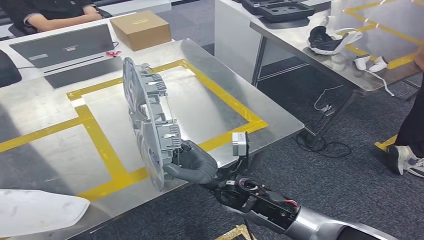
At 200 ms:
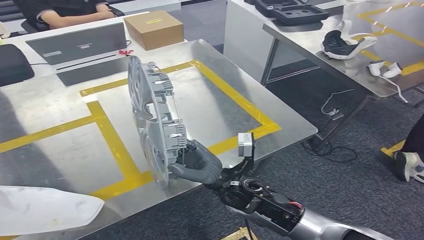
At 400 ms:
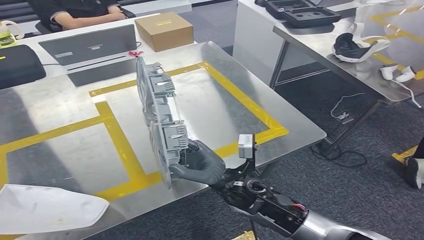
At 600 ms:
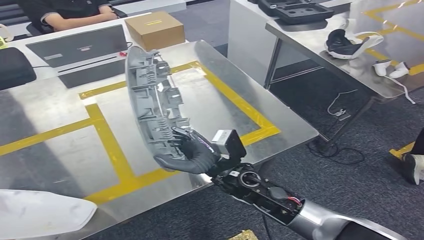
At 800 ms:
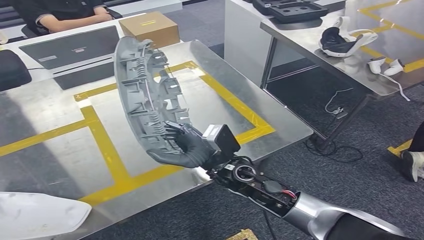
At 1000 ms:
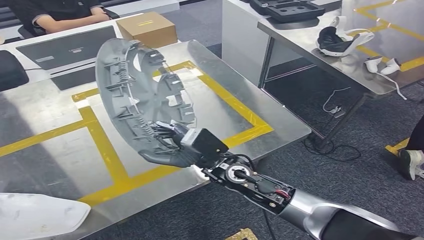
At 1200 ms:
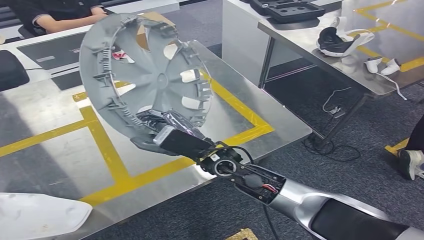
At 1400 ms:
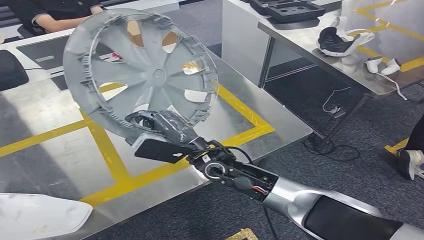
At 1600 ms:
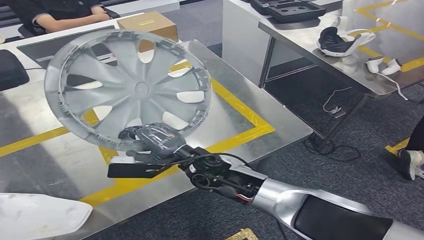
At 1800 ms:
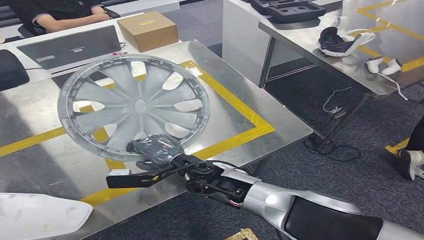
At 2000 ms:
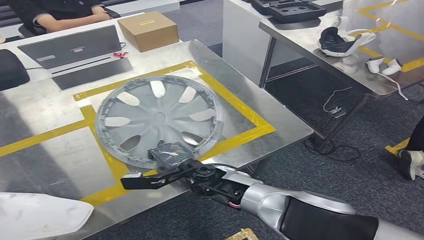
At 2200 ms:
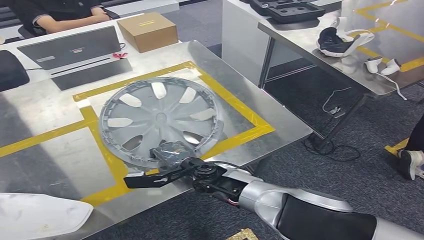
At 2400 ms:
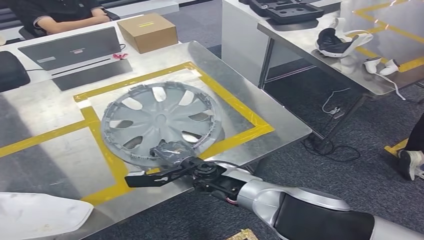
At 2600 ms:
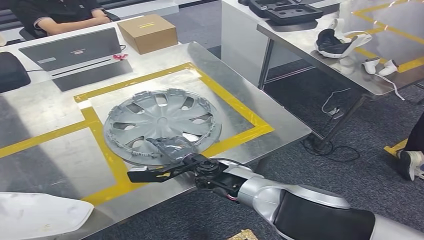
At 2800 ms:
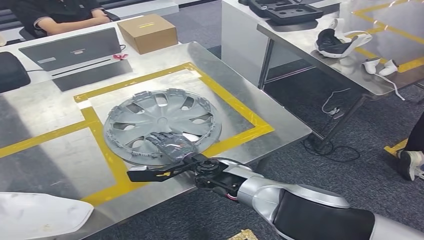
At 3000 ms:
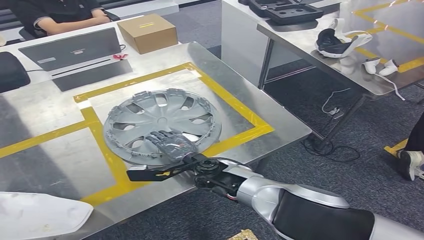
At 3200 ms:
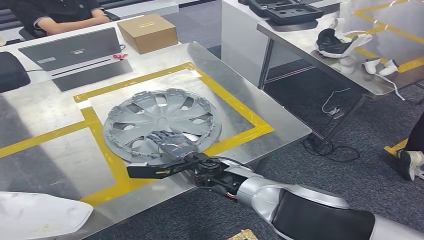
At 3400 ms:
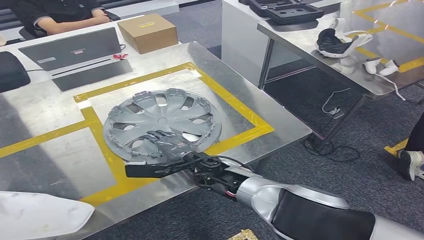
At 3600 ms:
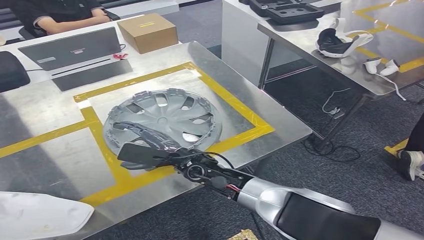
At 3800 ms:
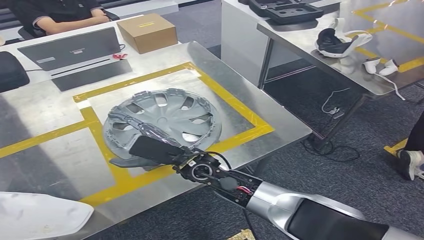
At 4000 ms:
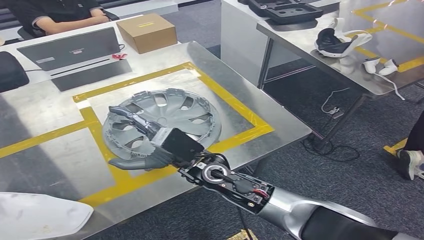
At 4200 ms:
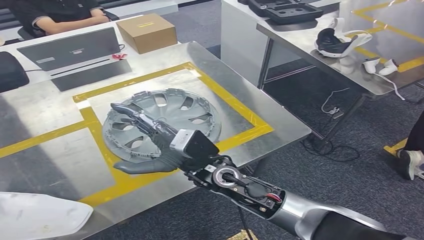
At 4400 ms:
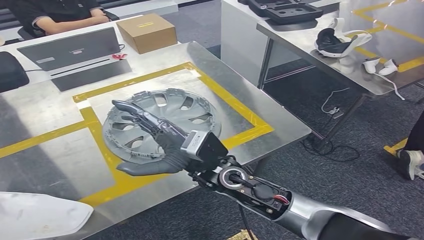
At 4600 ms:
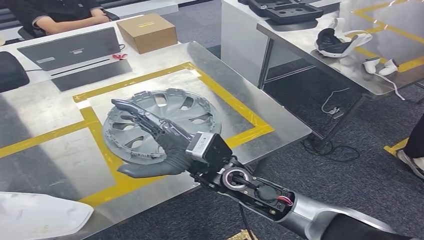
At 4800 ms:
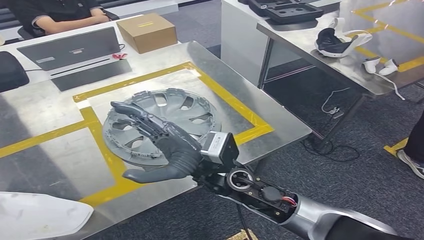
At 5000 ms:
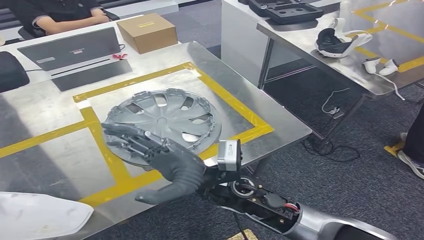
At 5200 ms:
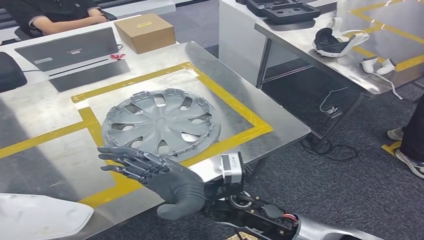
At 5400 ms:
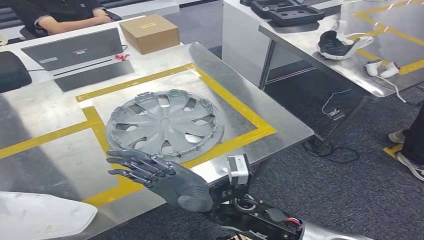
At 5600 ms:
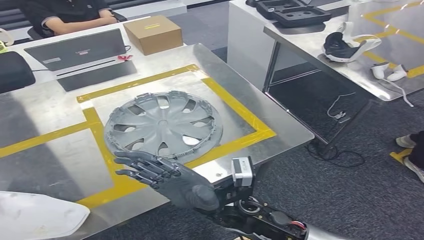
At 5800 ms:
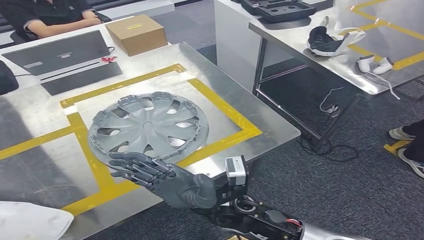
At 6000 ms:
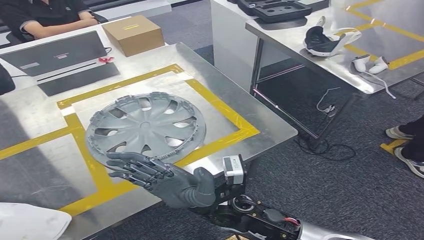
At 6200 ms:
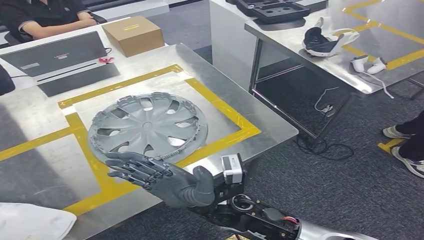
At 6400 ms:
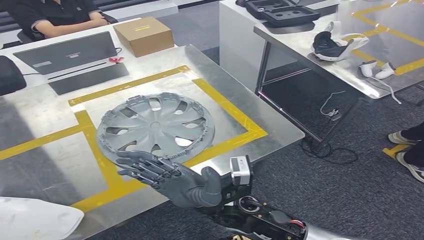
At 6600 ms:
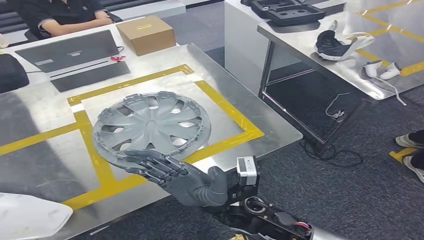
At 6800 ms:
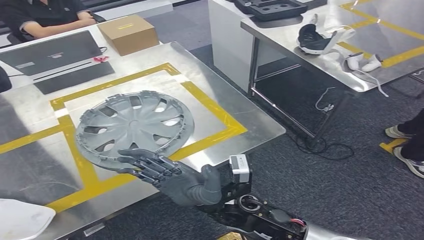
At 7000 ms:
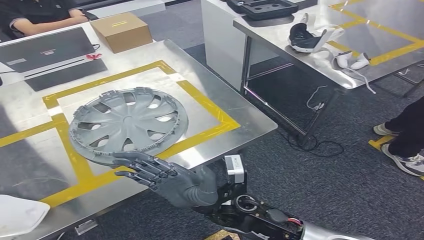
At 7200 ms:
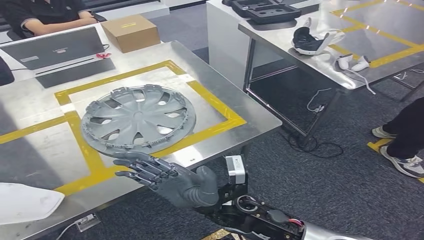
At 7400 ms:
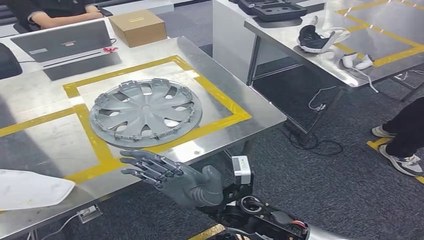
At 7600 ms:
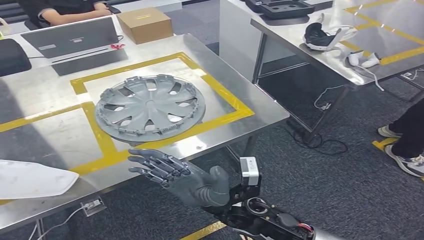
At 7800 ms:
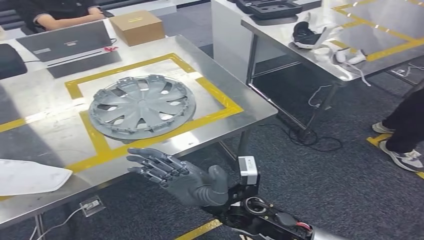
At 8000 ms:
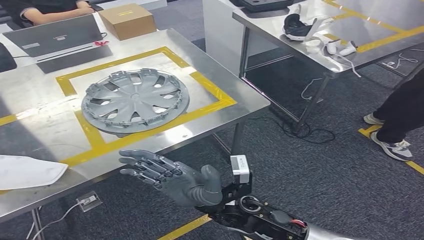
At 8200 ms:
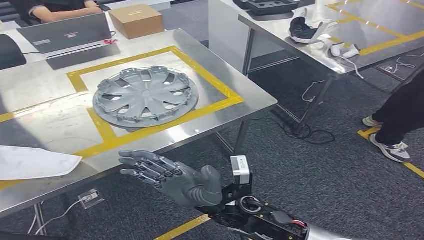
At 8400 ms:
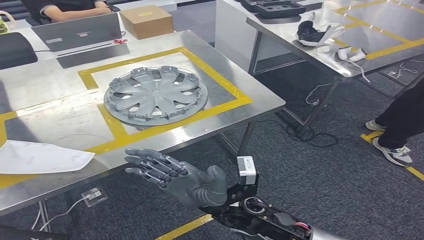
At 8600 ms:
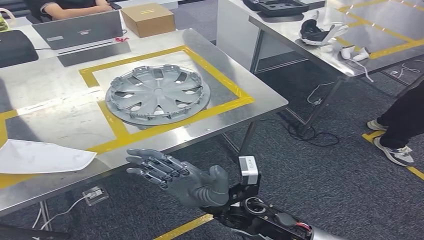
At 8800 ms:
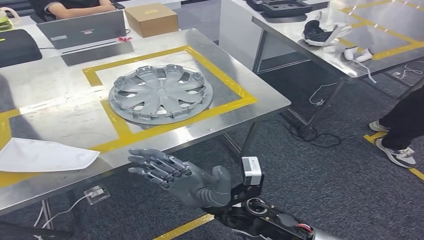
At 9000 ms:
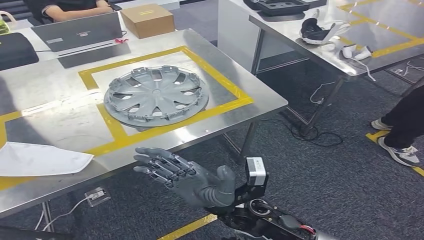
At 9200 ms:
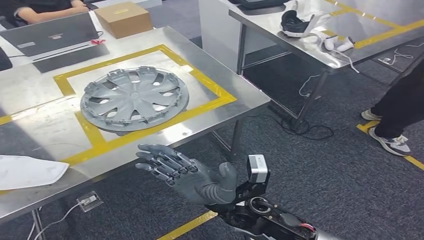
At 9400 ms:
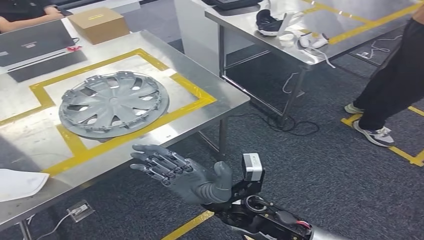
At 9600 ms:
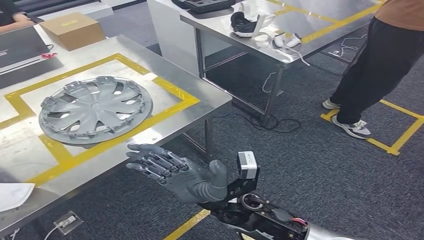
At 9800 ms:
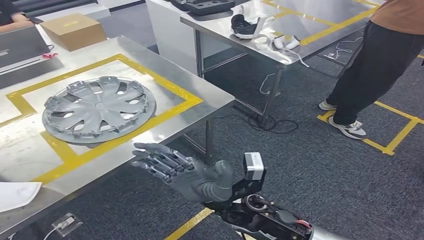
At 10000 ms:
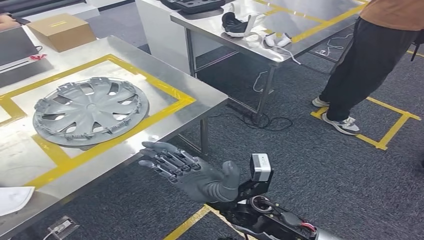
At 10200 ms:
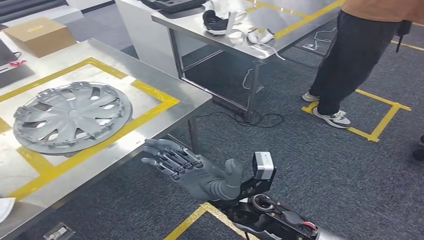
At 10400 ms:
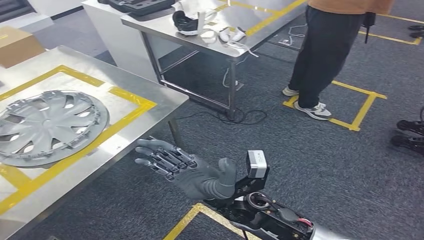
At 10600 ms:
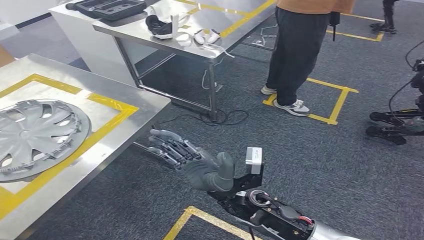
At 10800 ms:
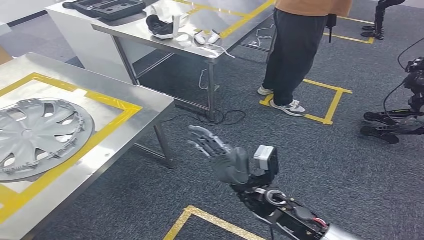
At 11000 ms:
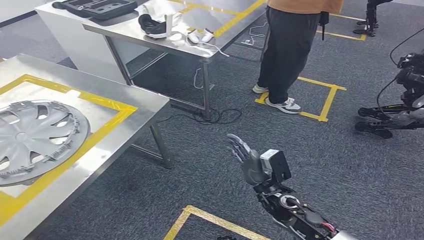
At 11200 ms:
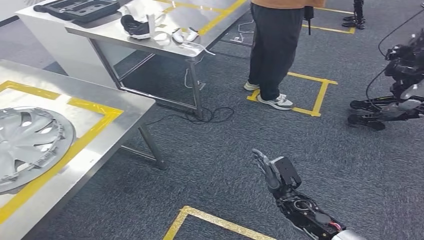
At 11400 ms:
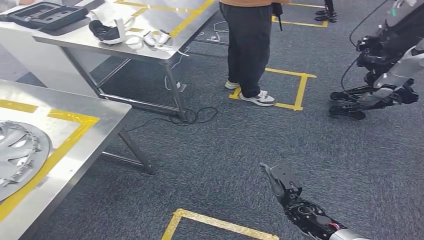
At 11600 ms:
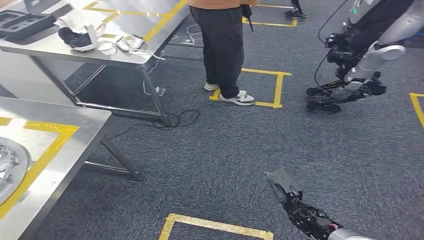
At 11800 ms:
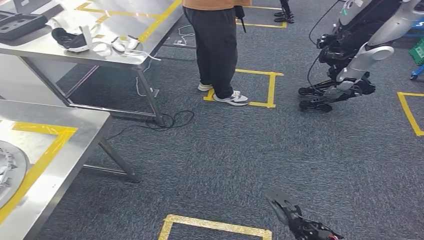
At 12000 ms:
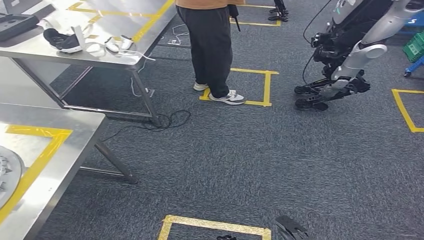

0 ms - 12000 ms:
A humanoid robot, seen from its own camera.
Step, 0 ms - 5400 ms: Insert the small component into the corresponding slot on the workbench.
3000 ms - 4400 ms: The right hand is displaced upward by approximately 10 cm.

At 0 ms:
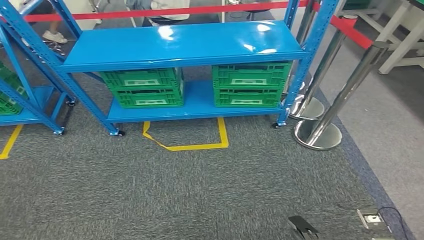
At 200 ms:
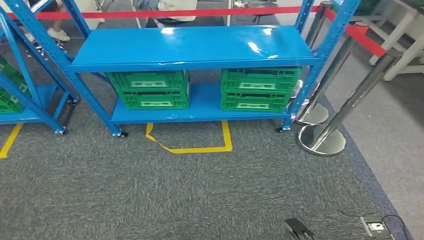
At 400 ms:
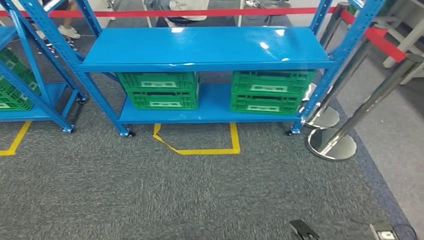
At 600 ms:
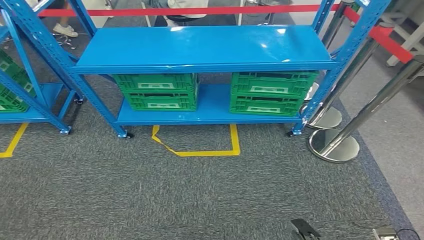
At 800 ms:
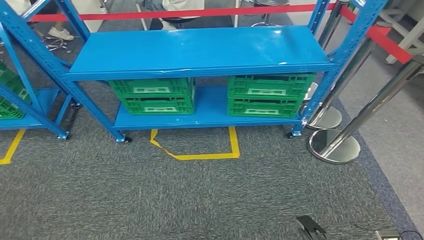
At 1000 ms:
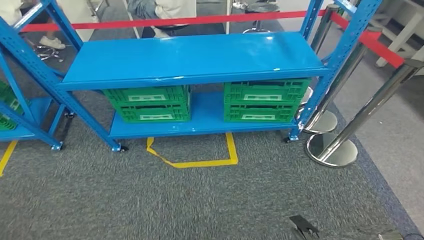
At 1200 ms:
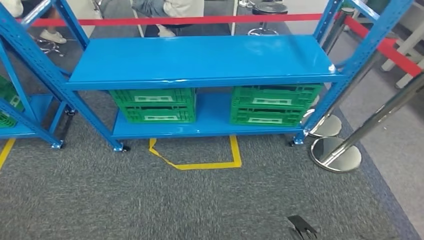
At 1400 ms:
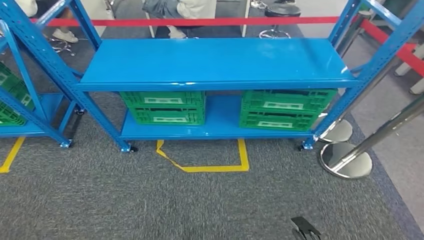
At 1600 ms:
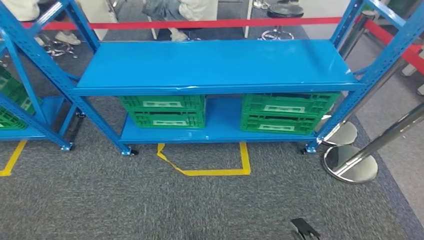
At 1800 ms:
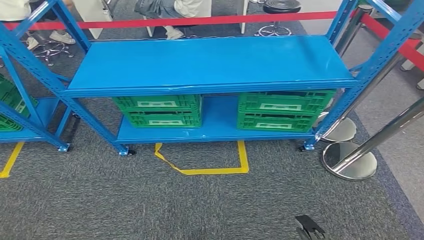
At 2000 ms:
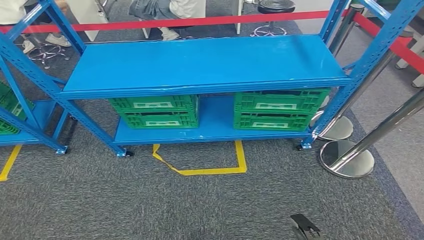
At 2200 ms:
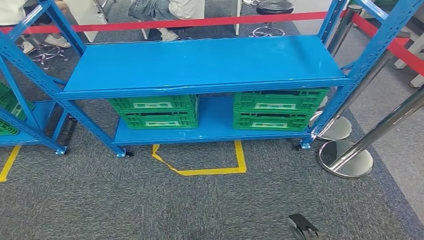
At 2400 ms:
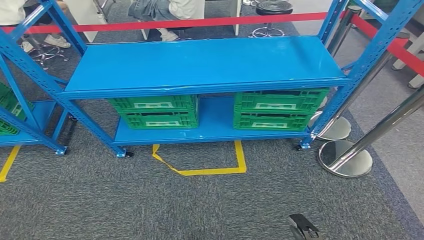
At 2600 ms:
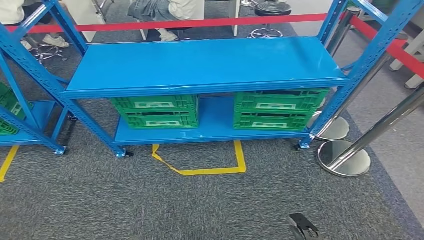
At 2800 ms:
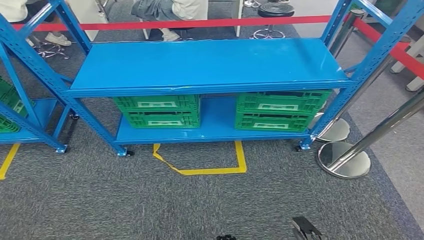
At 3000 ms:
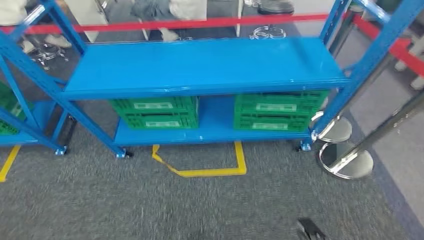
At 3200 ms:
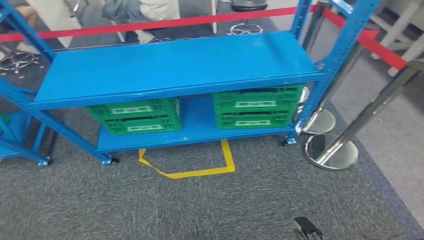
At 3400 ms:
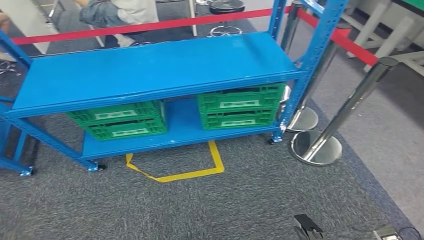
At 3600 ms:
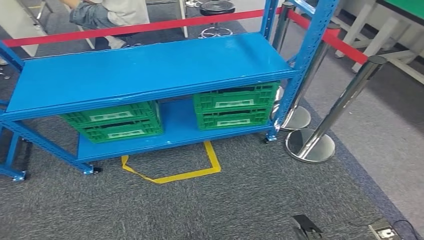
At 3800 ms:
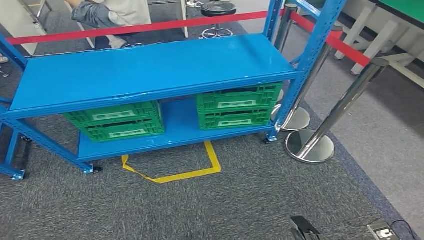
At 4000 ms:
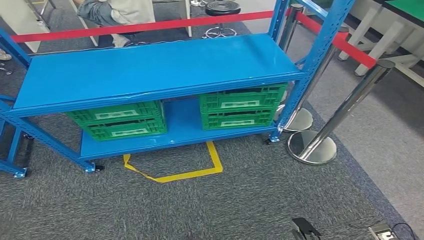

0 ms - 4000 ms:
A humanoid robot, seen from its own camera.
Step, 0 ms - 4000 ms: Return to the initial position at the workbench.
1400 ms - 2600 ms: The two hands keep their place.

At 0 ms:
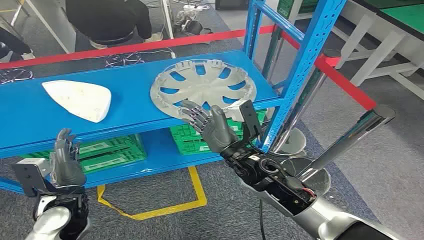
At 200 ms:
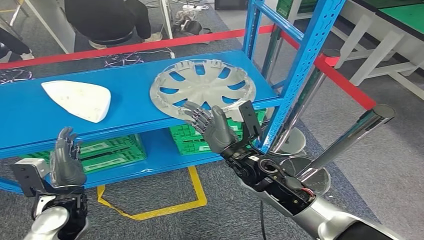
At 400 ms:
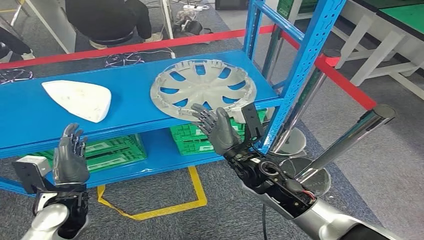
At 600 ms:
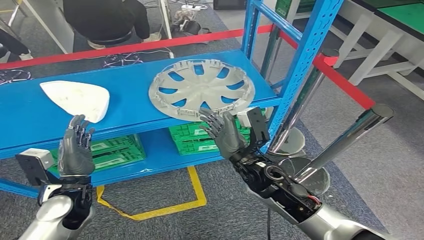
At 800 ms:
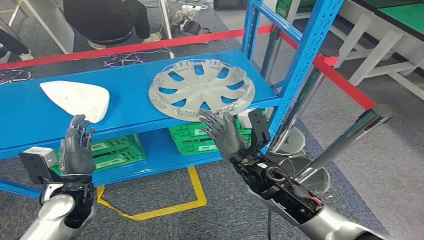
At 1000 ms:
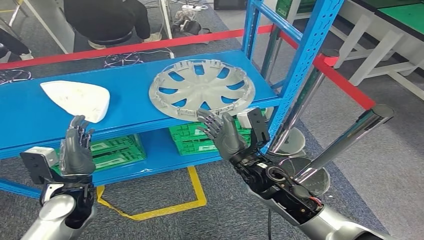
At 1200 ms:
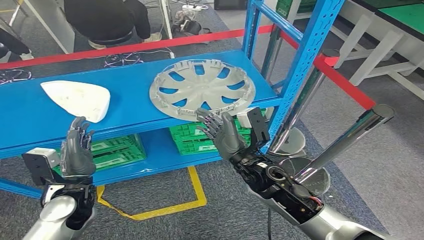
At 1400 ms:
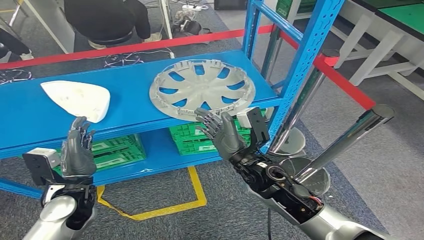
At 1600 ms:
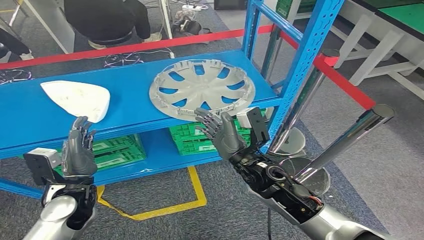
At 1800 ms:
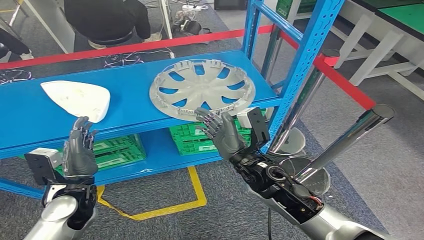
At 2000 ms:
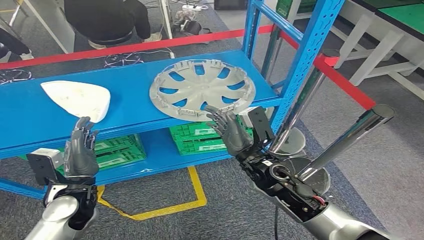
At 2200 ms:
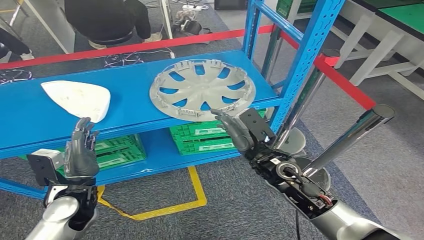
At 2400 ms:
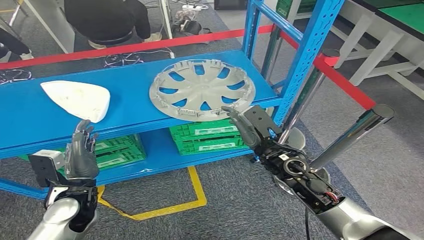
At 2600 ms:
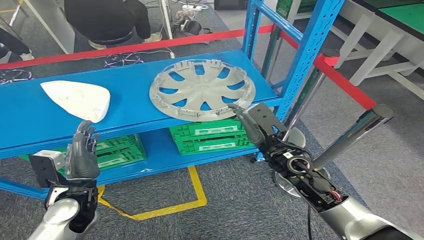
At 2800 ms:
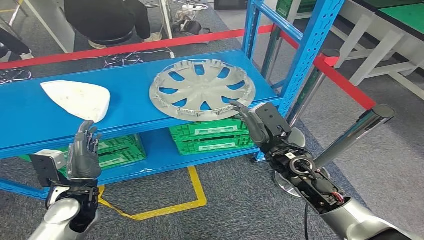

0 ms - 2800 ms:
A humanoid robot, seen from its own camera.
1400 ms - 2800 ms: The right hand moves to the right, some 5 cm.
